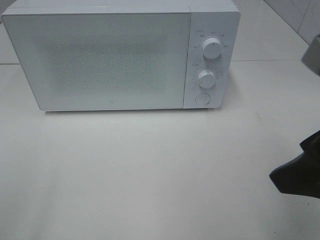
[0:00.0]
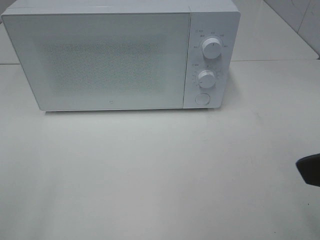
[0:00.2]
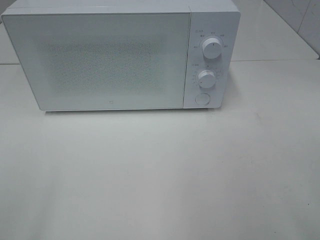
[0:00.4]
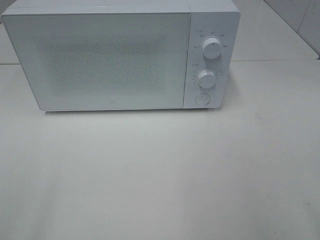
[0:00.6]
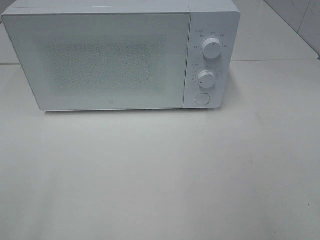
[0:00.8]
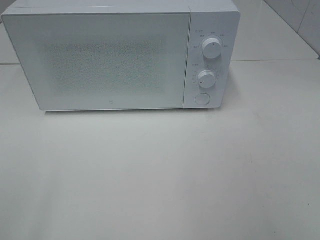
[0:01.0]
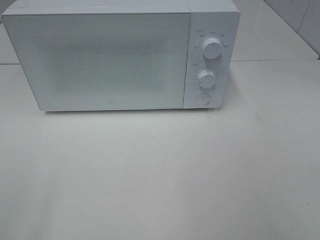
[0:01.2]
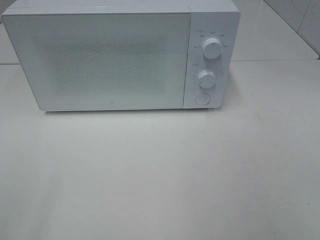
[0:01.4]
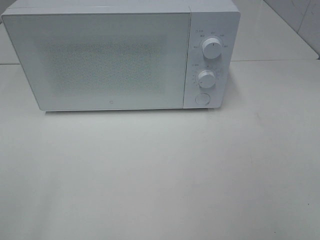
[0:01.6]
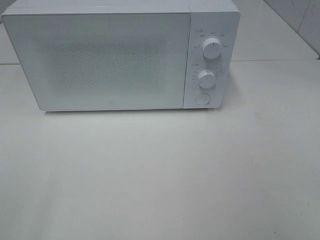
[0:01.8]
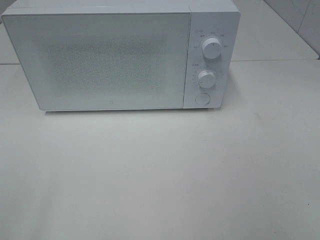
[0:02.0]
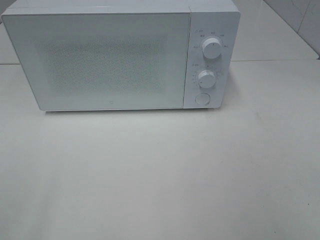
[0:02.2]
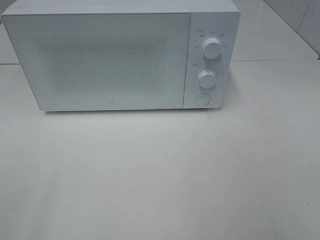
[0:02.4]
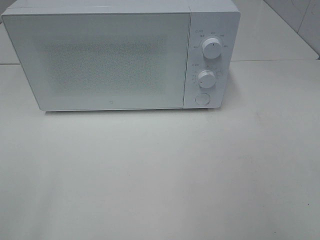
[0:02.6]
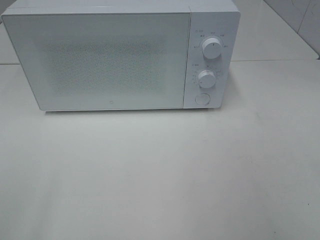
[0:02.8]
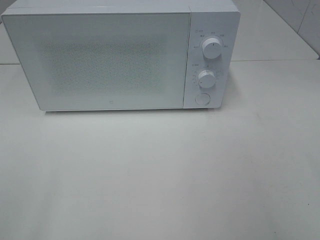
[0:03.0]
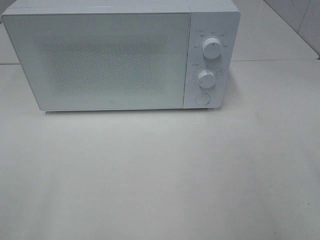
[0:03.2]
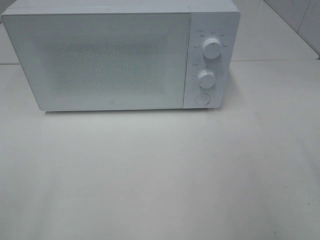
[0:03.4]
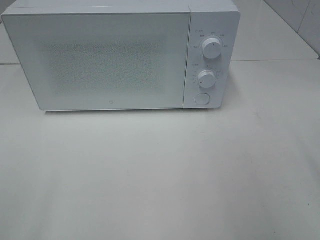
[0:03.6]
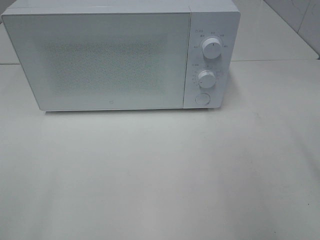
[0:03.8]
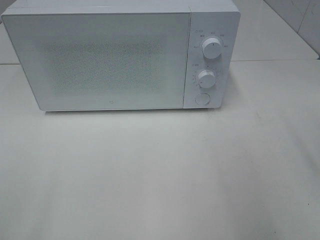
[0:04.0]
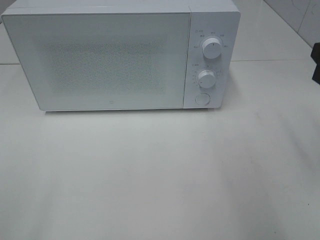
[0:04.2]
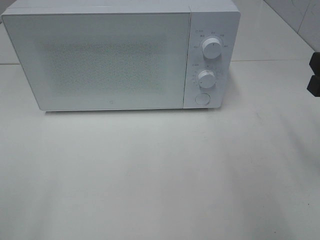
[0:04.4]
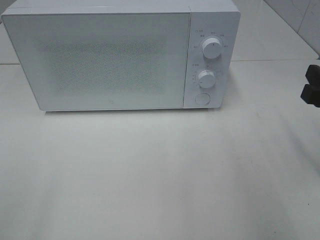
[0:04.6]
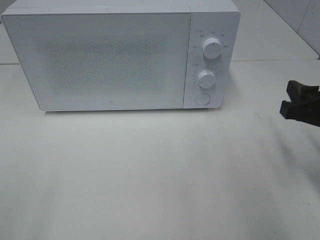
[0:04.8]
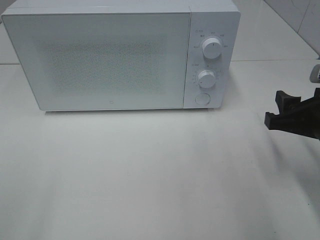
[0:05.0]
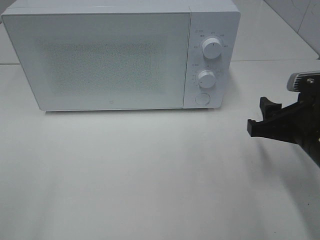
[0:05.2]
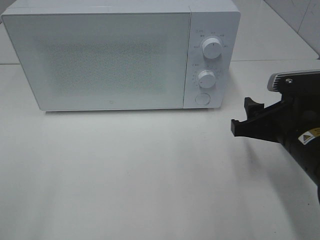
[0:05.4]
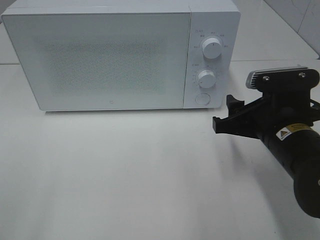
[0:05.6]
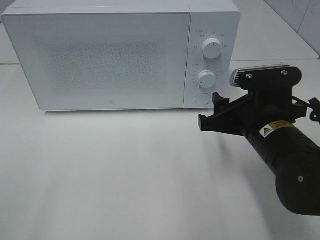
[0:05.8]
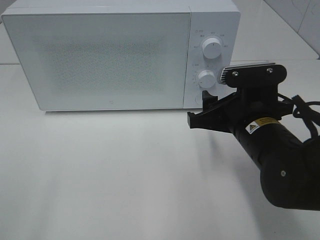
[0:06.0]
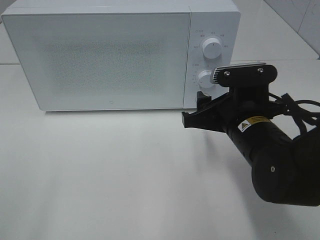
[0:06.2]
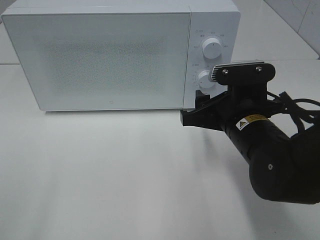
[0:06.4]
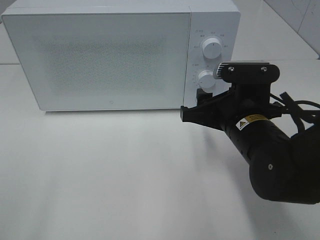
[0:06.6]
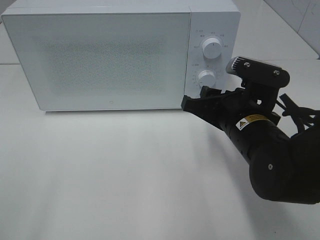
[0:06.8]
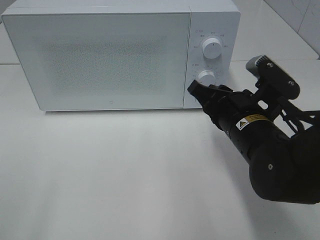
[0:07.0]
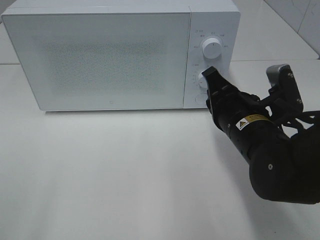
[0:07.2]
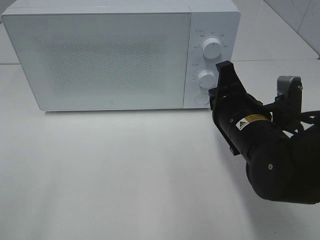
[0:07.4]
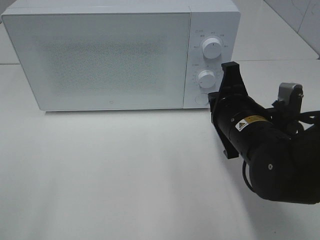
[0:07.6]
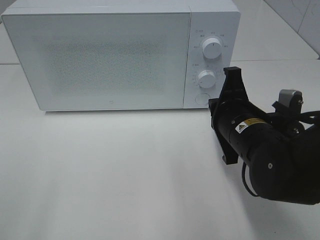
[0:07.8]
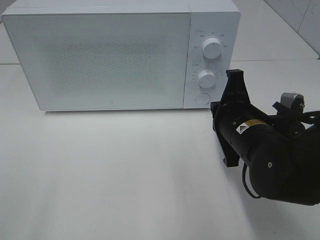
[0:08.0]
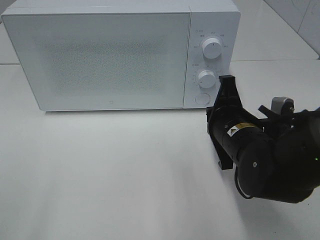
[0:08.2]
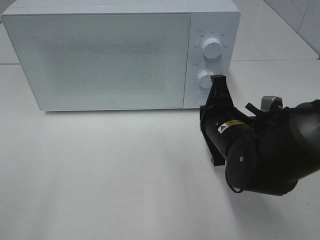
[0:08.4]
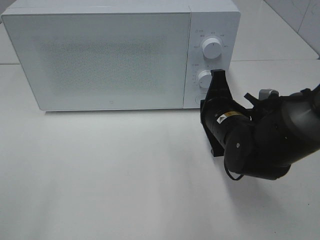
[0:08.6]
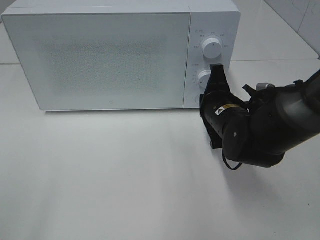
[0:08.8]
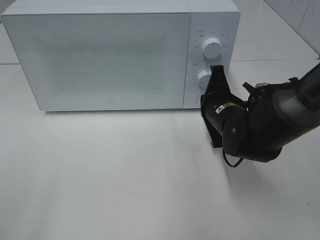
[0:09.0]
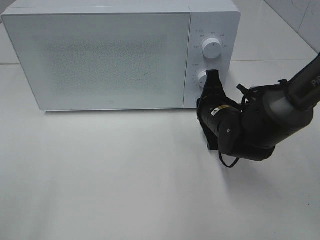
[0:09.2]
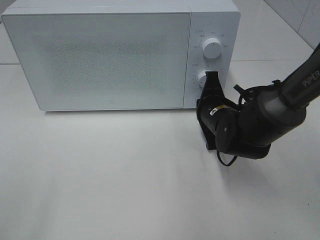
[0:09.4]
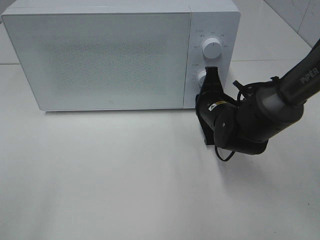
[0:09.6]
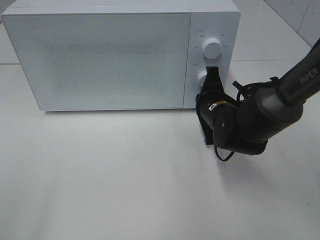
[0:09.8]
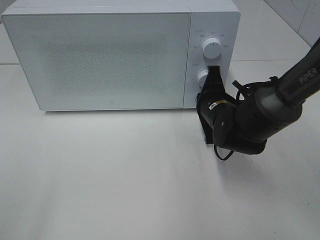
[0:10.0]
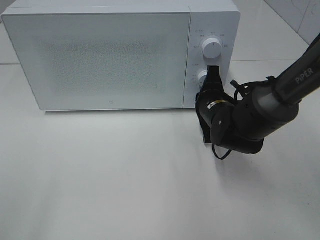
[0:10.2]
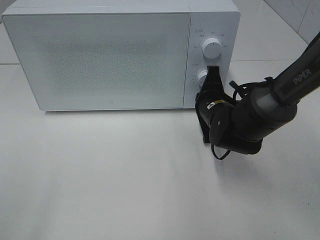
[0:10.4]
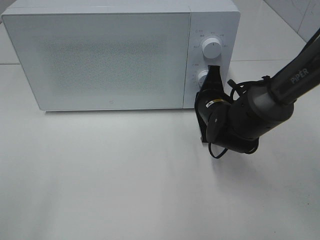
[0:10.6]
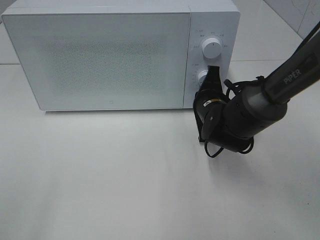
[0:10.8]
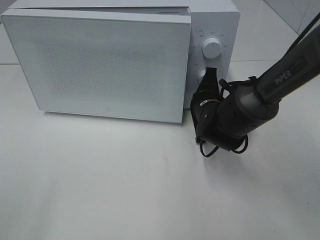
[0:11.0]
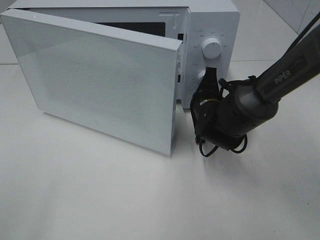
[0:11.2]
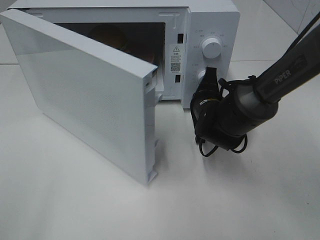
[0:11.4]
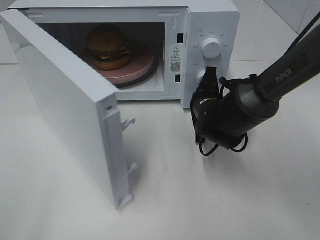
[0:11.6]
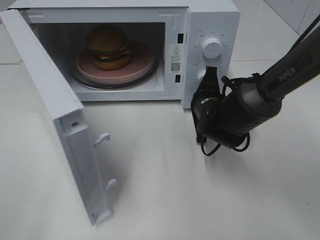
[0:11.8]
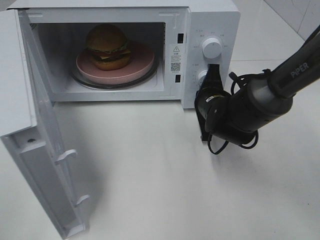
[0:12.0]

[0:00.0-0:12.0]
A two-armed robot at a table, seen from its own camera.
Task of the whole recording: Heat the burger.
0:00.0 to 0:01.6: The right gripper shifts some 15 cm backward and to the right.
0:04.4 to 0:06.0: The right gripper moves to the left and downward, approximately 15 cm.
0:06.0 to 0:07.6: The right gripper closes.
0:07.6 to 0:09.0: The right gripper heads forward, covering approximately 10 cm.
0:09.0 to 0:10.4: There are only small adjustments of the grippers.

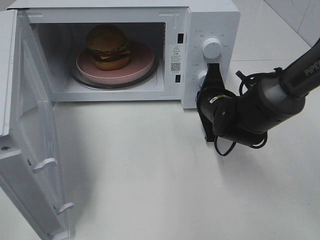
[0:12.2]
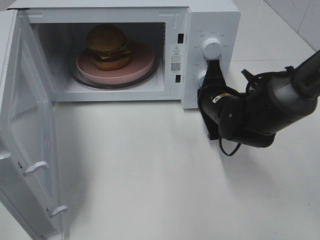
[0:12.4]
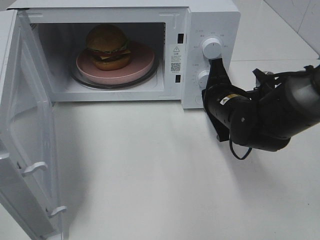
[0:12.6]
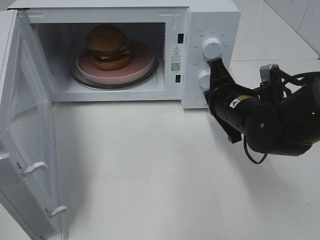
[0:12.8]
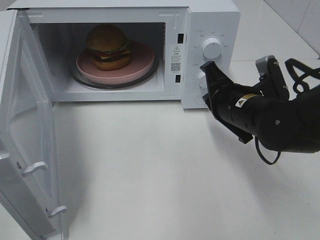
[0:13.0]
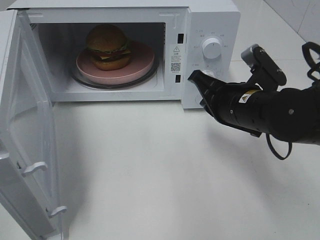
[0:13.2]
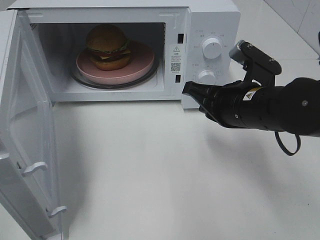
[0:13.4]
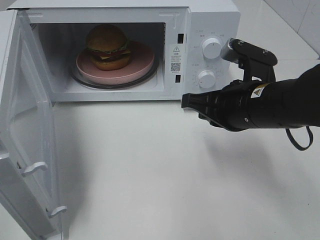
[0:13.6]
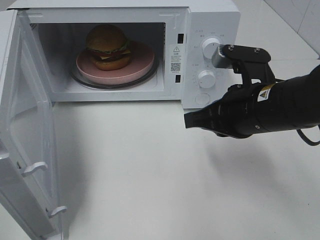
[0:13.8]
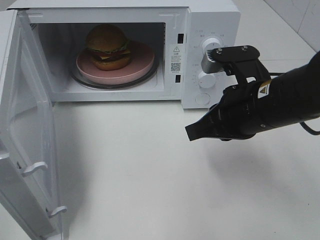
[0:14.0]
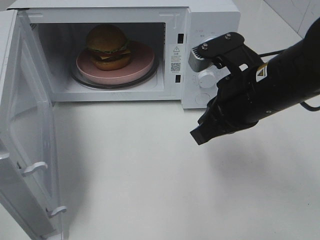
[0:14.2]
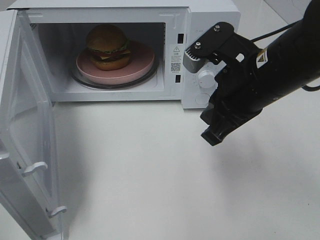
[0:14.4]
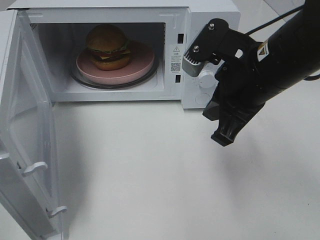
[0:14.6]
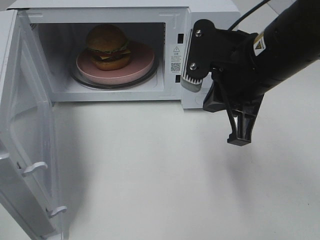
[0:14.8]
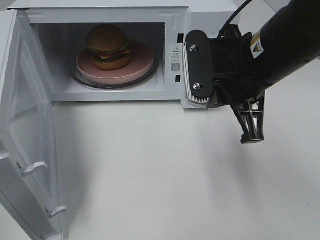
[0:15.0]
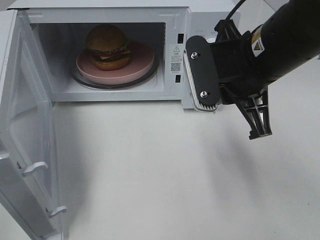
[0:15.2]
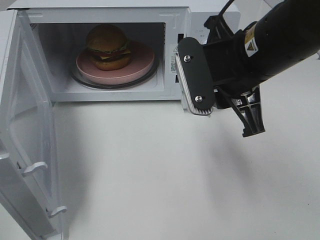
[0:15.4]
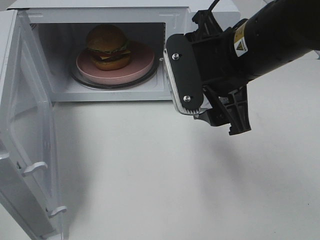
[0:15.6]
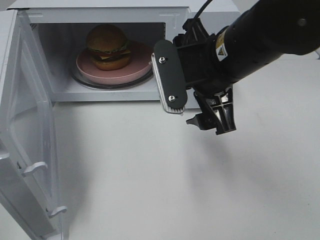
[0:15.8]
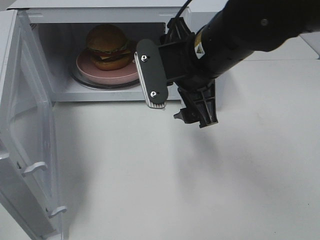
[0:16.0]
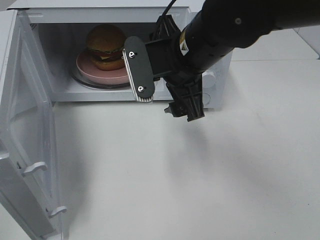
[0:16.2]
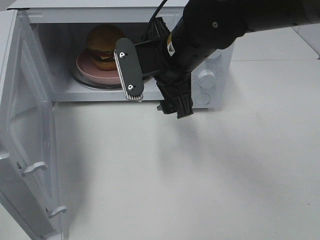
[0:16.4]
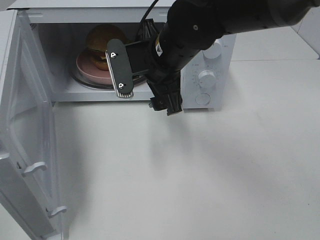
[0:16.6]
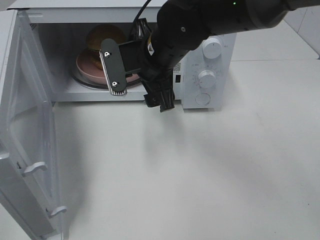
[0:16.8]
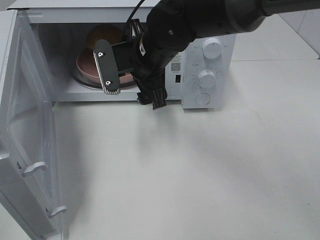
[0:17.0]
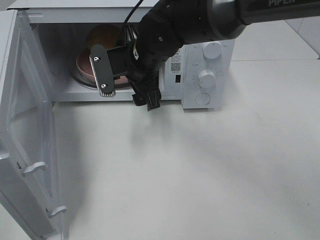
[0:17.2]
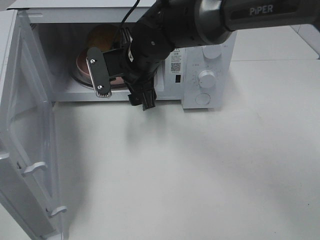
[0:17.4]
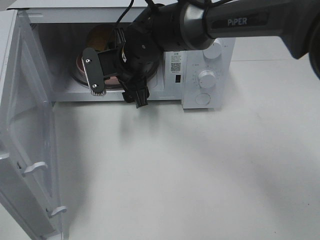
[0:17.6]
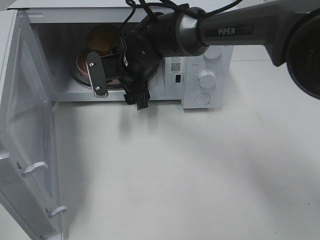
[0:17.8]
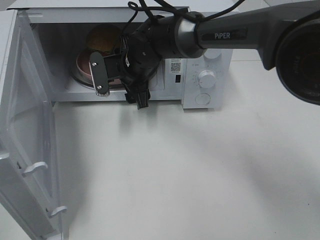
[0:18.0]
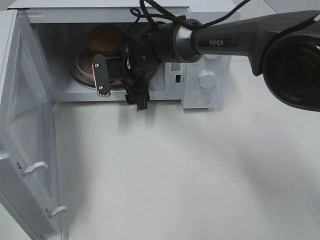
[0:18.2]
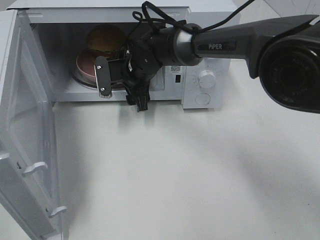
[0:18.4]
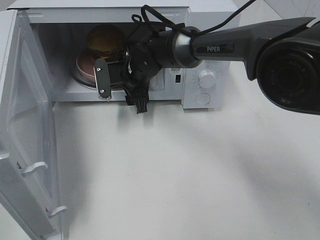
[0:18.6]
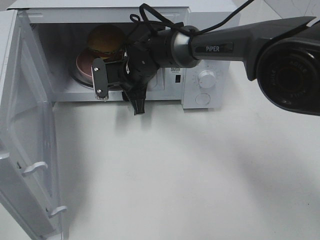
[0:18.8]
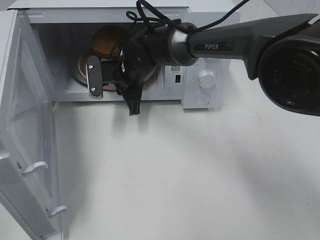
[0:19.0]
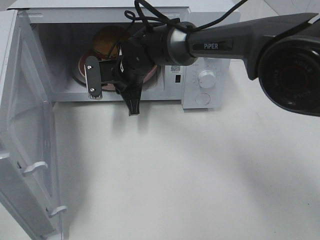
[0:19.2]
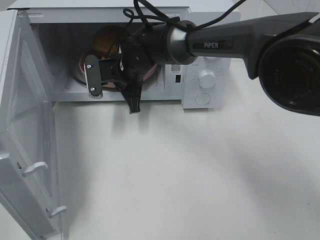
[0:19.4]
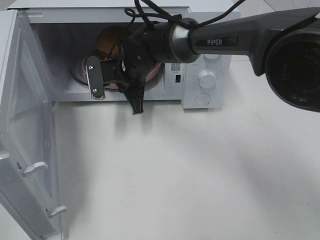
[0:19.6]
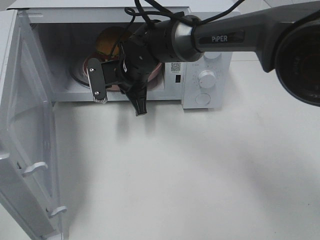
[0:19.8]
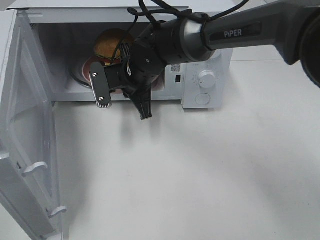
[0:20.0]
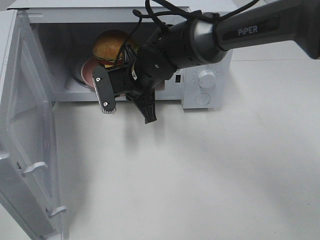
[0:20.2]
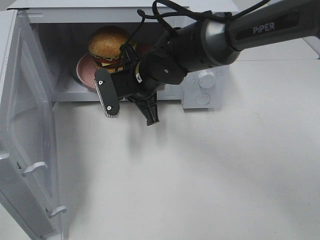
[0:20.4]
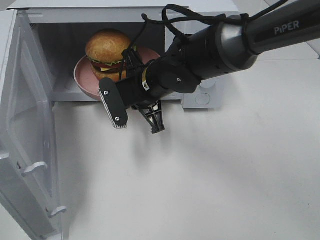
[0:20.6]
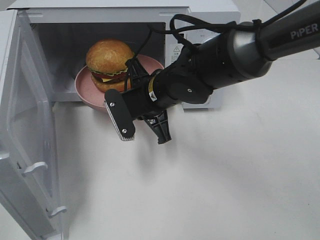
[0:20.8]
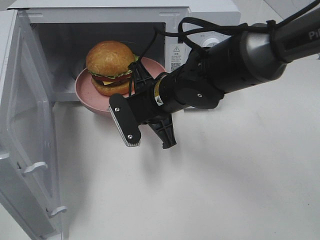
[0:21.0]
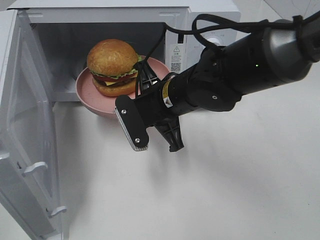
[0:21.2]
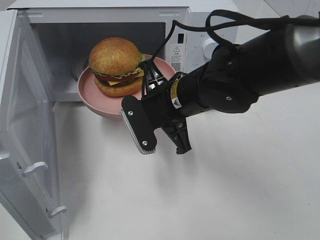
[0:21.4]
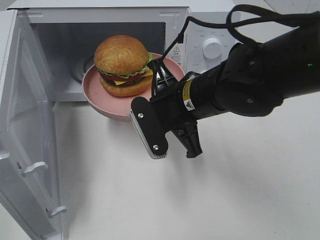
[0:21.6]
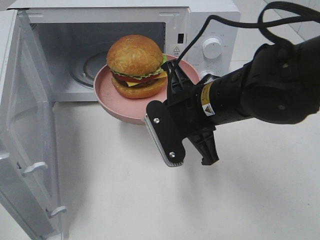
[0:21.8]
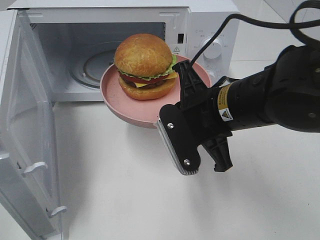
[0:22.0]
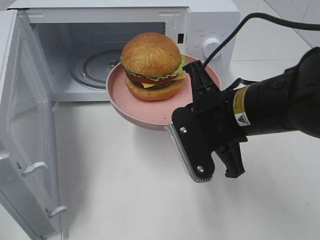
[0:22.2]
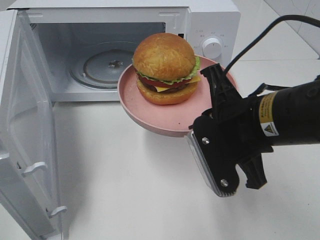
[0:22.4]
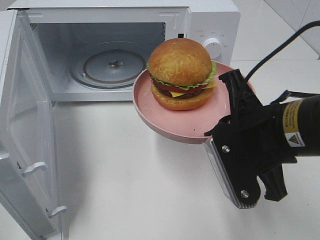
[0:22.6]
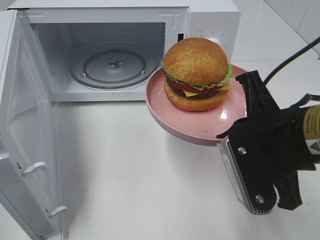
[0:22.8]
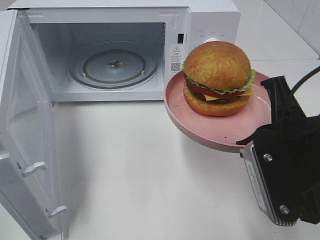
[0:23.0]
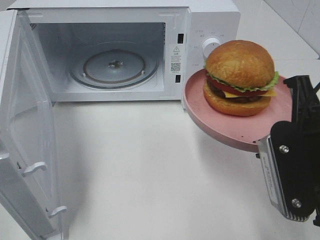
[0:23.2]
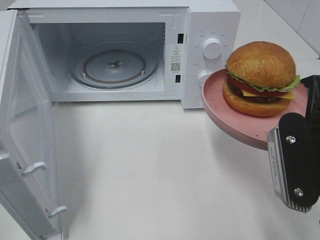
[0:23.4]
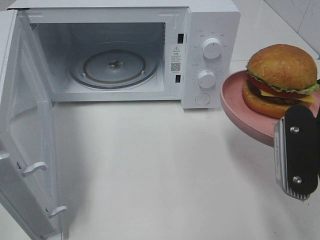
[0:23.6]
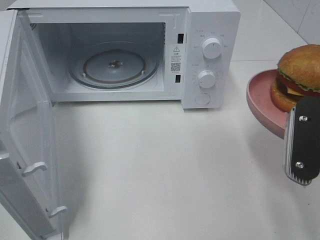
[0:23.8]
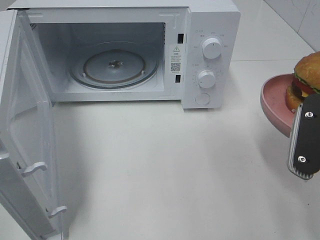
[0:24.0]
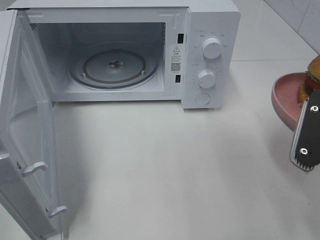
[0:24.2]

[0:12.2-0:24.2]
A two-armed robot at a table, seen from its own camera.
Task of the whole recording: Heat the burger.
Step, 0:12.6 to 0:19.2: Right hand: grab the plate with the hamburger.
0:12.2 to 0:13.8: The right gripper shifts roughly 15 cm backward and upward.
0:13.8 to 0:15.2: The right gripper travels upward by approximately 5 cm.
0:15.2 to 0:16.6: The right gripper is displaced to the left and forward by roughly 15 cm, and opens its fingers.
0:16.6 to 0:18.2: The right gripper heads forward, downward and to the left, covering some 15 cm.
0:18.2 to 0:19.8: The right gripper closes.
0:19.8 to 0:21.2: The right gripper moves backward and to the right, roughly 15 cm.
0:21.2 to 0:22.6: The right gripper heads backward, to the right and upward, covering approximately 15 cm.
0:22.6 to 0:24.2: The right gripper goes approximately 10 cm to the right.
